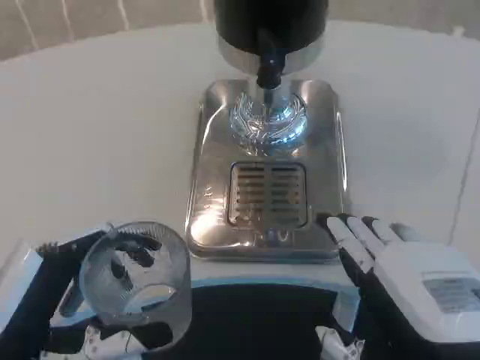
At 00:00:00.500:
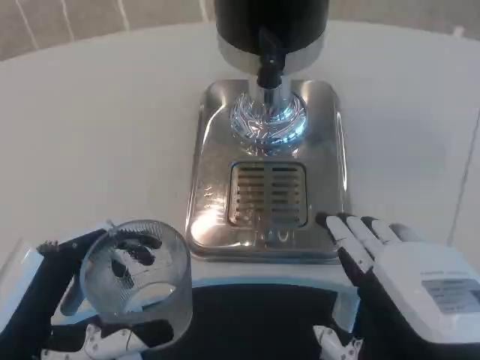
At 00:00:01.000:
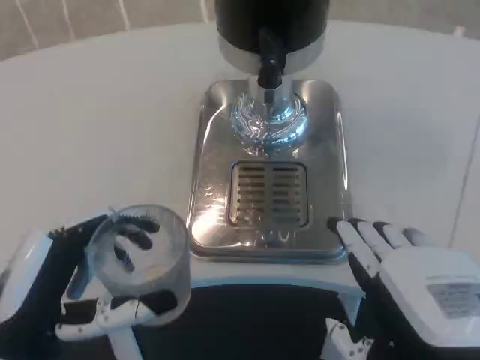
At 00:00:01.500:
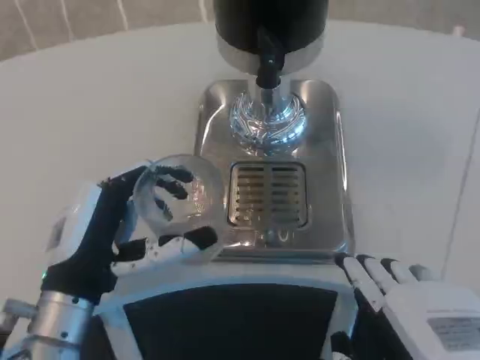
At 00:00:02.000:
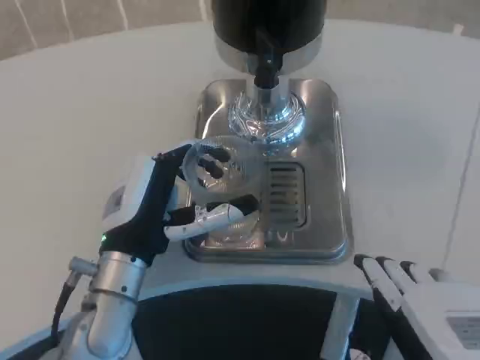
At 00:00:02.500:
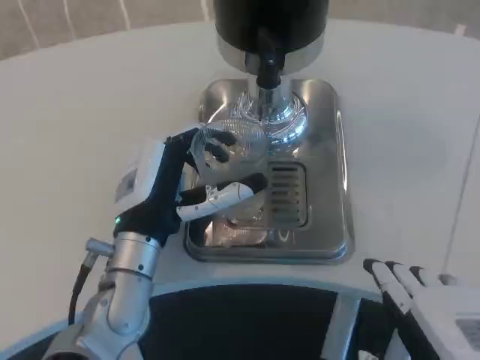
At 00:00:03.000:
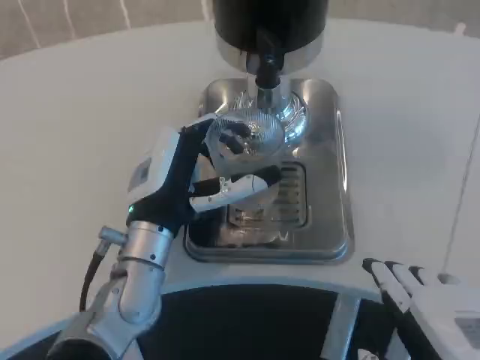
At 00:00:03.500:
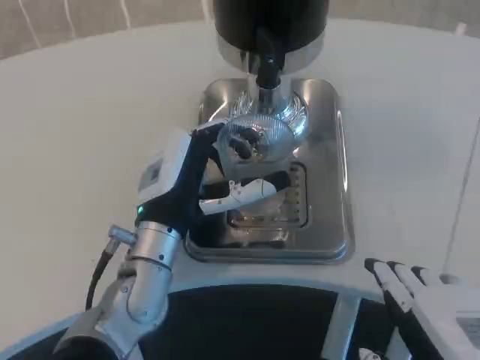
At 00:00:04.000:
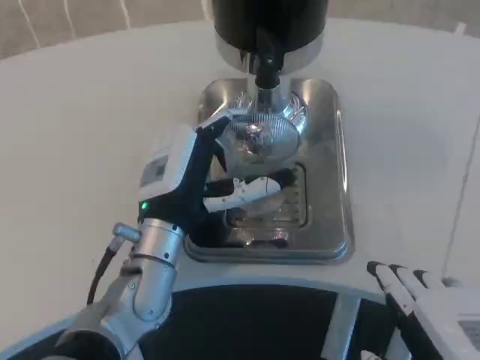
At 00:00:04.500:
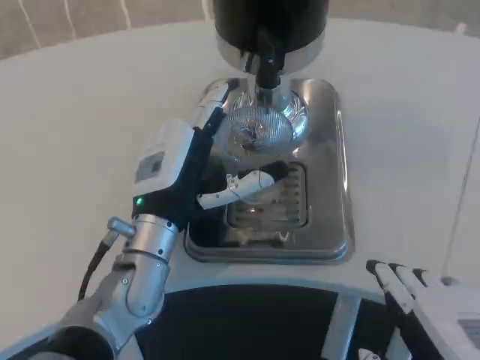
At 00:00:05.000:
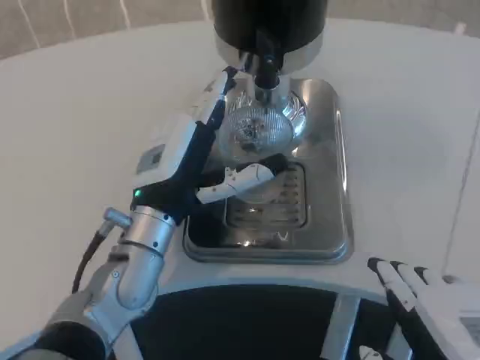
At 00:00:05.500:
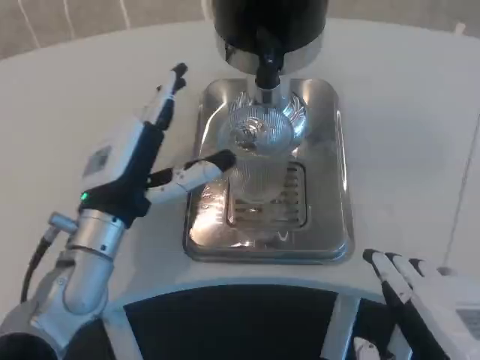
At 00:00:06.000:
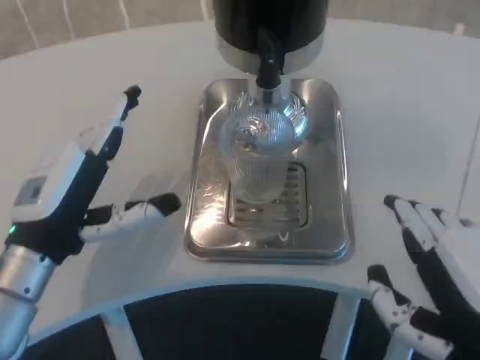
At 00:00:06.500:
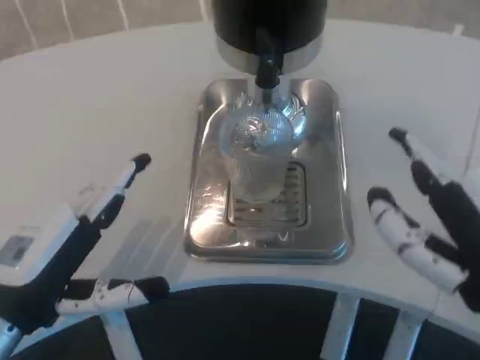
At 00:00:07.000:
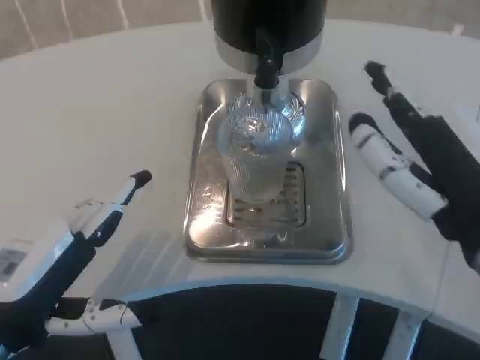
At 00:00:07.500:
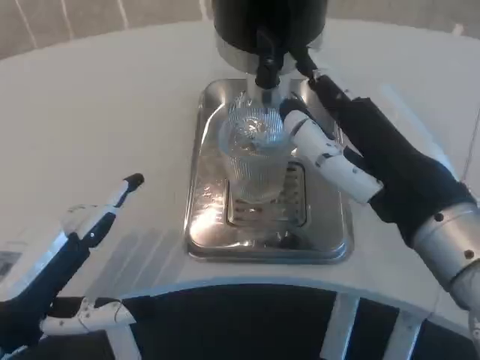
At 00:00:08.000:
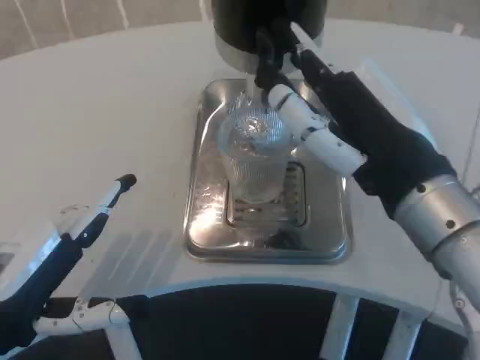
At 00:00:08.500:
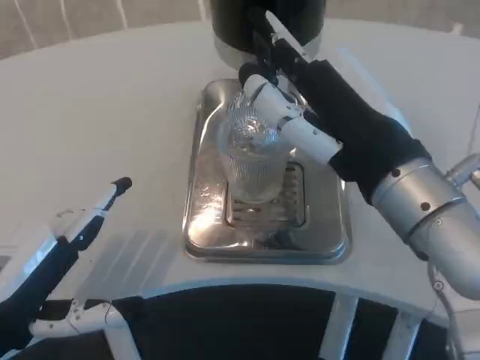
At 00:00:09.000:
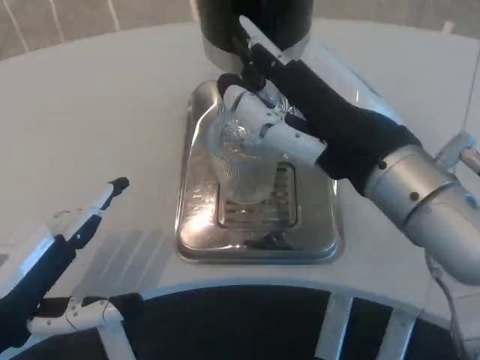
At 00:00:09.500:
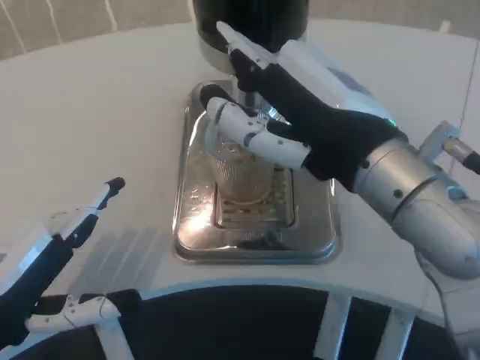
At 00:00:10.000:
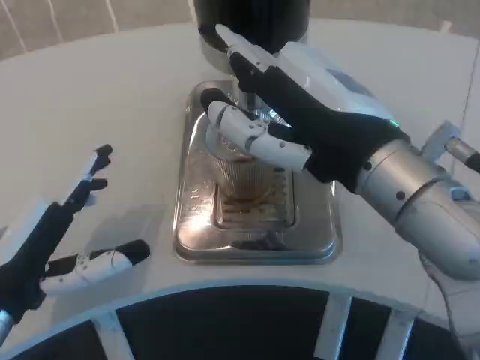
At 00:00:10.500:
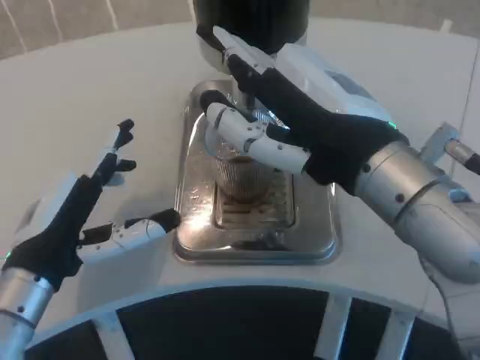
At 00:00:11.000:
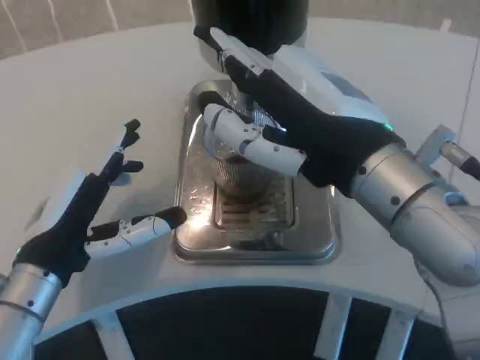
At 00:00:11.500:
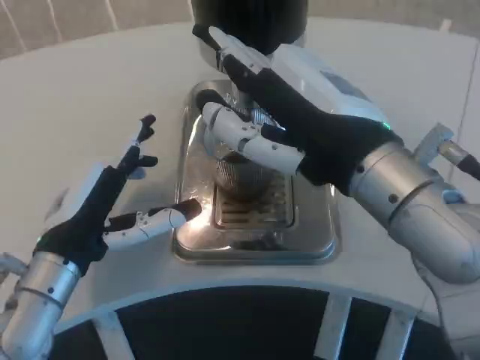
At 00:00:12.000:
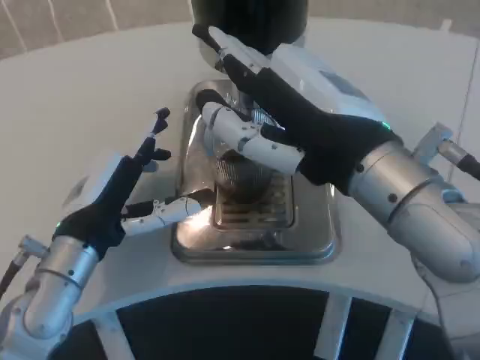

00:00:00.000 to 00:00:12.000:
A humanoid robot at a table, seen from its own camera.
Task of the whole recording: Grasp the cup under the faucet to collect the drink, then remove the cup.
00:00:00.000 to 00:00:02.000: The left hand shifts roughly 15 cm forward and to the right.
00:00:02.000 to 00:00:04.000: The hands move only a little.
00:00:04.000 to 00:00:06.000: The left hand is displaced to the left and backward by some 15 cm.
00:00:06.000 to 00:00:08.000: The left hand shifts approximately 10 cm backward; the right hand shifts some 10 cm forward and upward.
00:00:10.000 to 00:00:12.000: The left hand goes approximately 10 cm forward and to the right.

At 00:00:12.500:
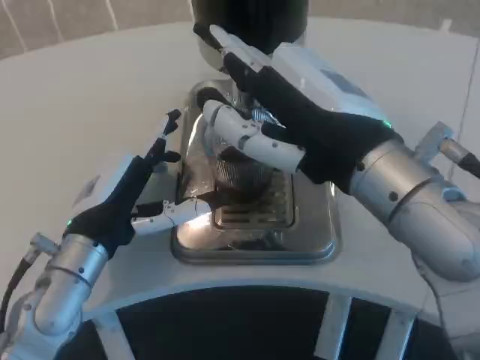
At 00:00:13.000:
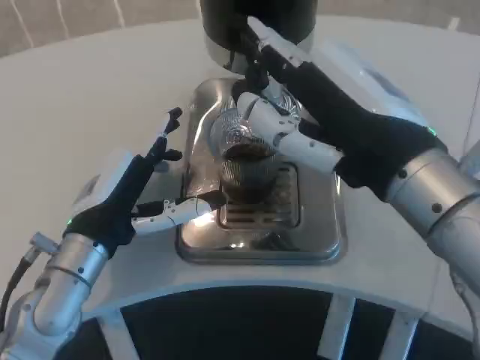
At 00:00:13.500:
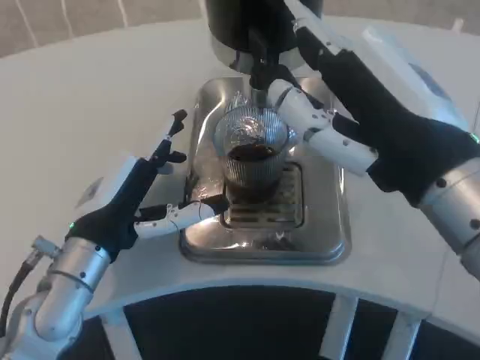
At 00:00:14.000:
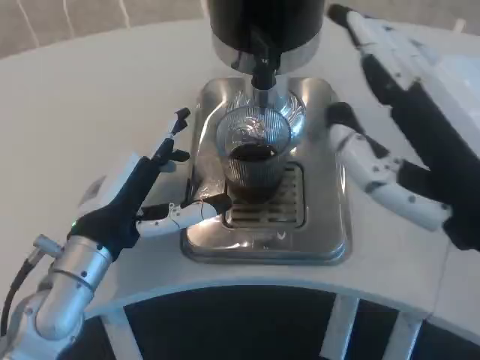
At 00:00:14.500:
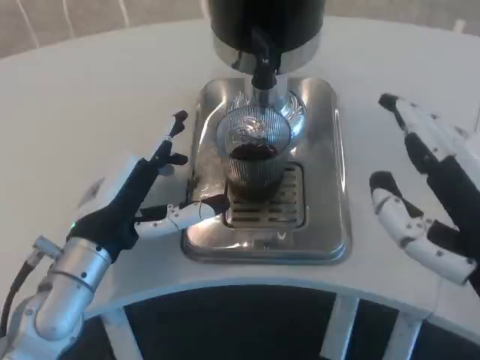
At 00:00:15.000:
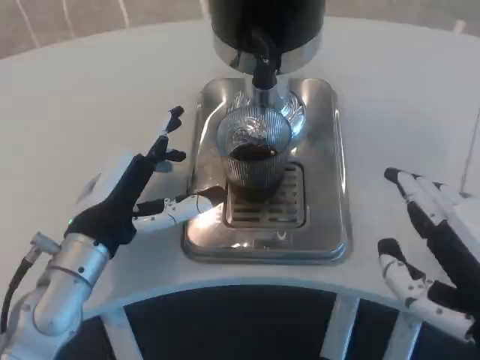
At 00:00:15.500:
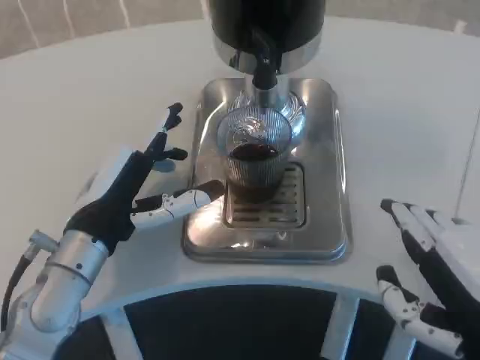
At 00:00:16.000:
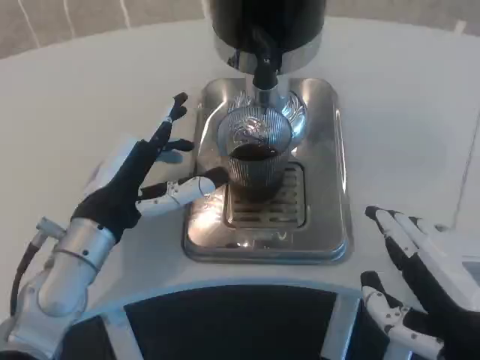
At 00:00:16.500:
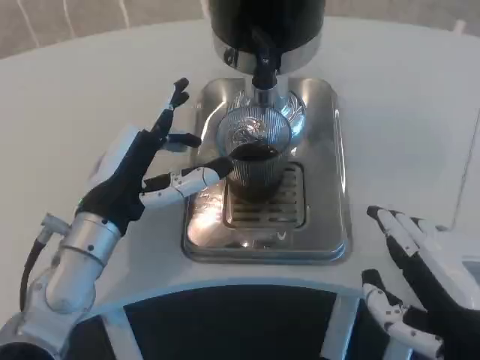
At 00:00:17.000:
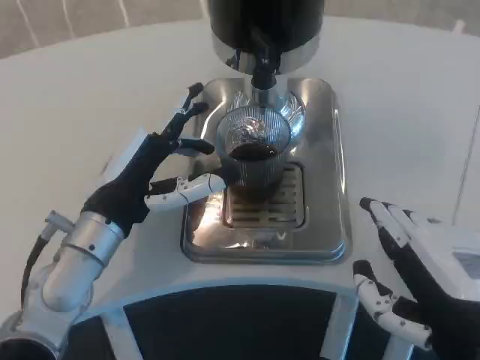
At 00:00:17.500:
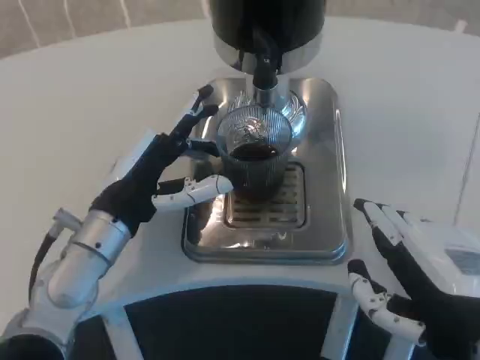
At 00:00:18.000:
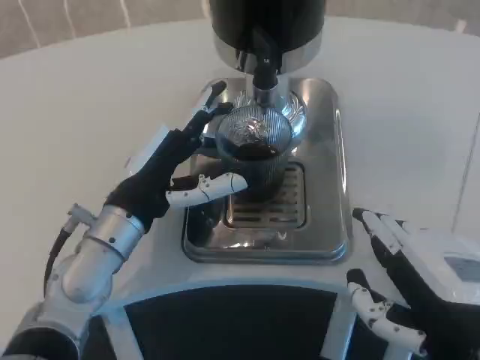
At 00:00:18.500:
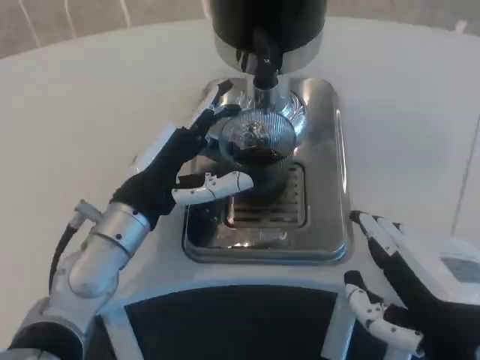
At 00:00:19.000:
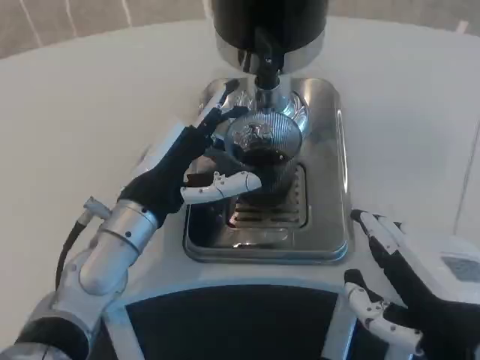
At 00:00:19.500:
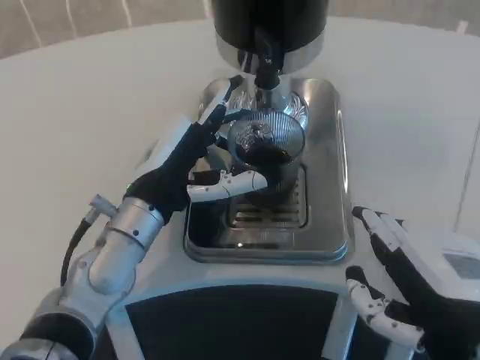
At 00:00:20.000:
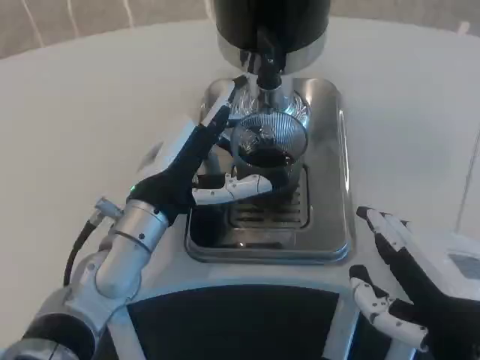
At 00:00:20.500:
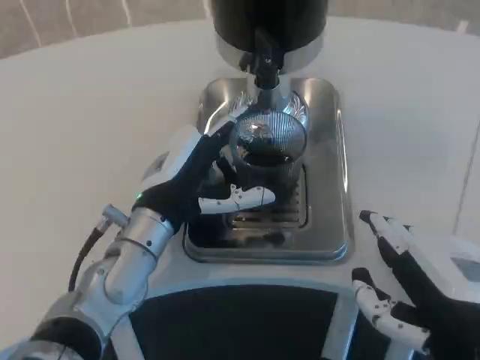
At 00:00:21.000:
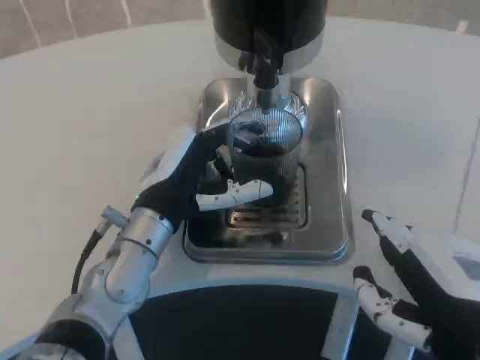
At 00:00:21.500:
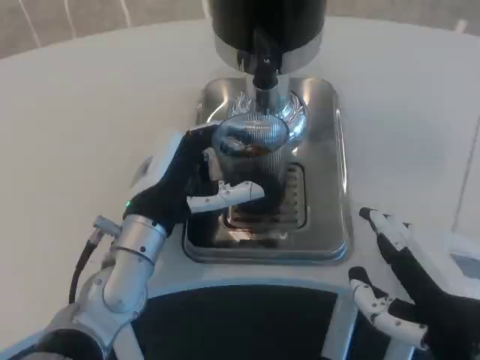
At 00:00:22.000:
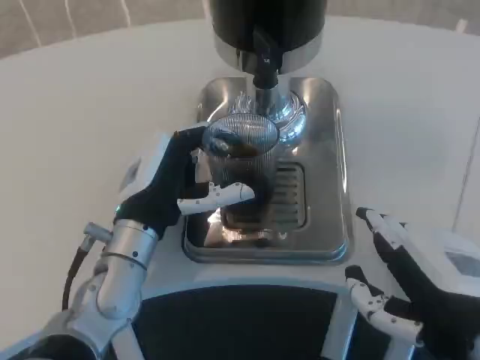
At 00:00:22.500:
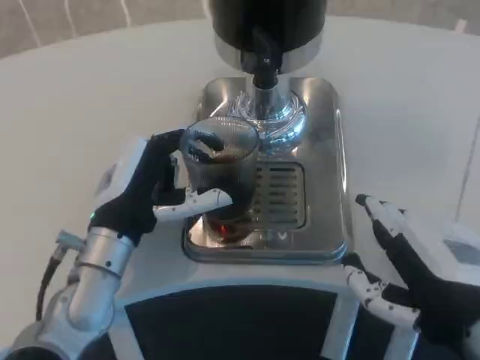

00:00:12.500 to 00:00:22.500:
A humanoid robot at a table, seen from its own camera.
Task of the whole recording: Grasp the cup under the faucet to collect the drink, then remove the cup.
00:00:12.500 to 00:00:14.500: The right hand travels backward and to the right by approximately 10 cm.
00:00:14.500 to 00:00:16.500: The right hand travels downward by approximately 5 cm.
00:00:16.500 to 00:00:22.500: The hands stay close to where they were, moving slightly.

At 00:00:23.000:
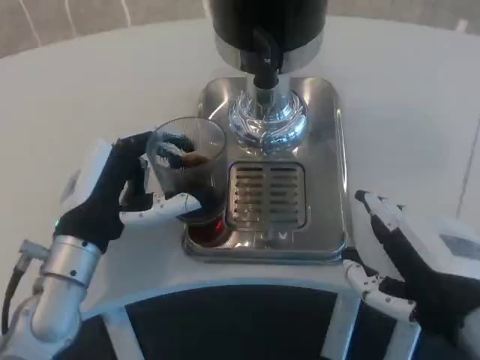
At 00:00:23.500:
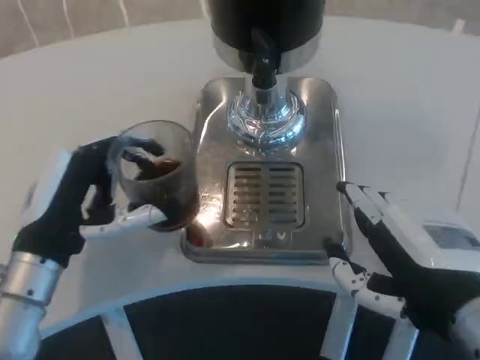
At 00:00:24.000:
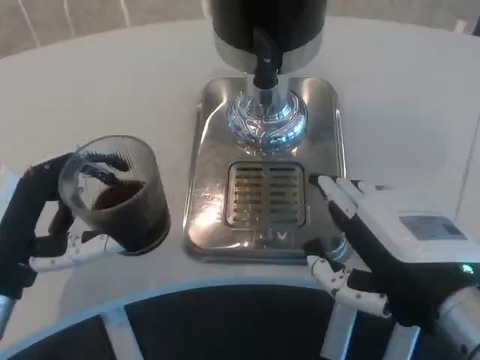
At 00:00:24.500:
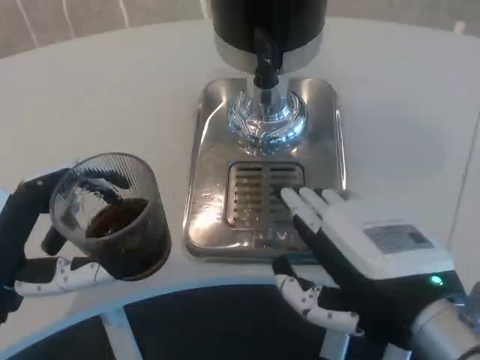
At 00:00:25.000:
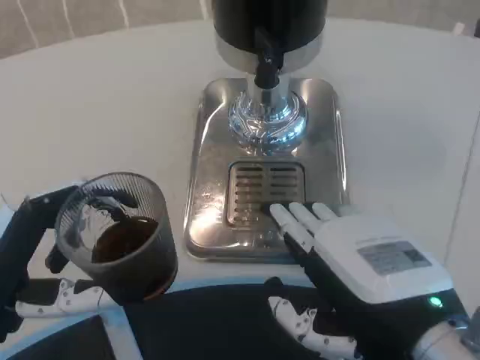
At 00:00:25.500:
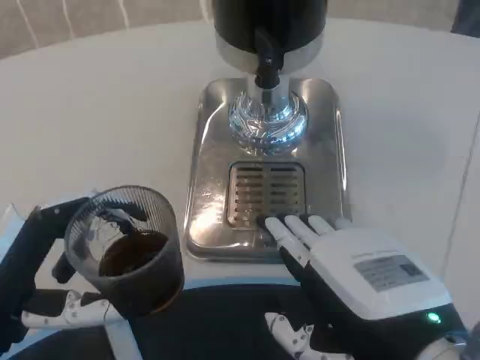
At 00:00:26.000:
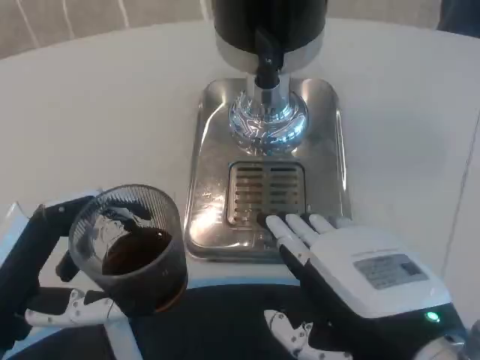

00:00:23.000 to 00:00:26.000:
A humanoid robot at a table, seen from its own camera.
Task of the whole recording: Grasp the cup under the faucet to collect the drink, then remove the cup.
00:00:23.000 to 00:00:24.500: The left hand is displaced backward and to the left by approximately 10 cm.
